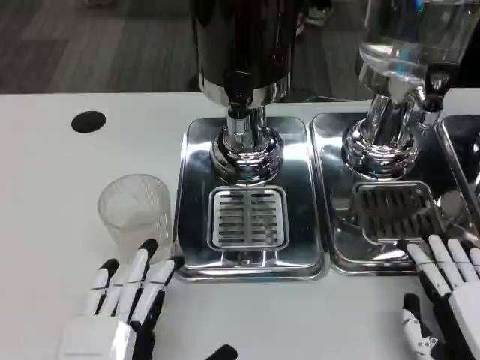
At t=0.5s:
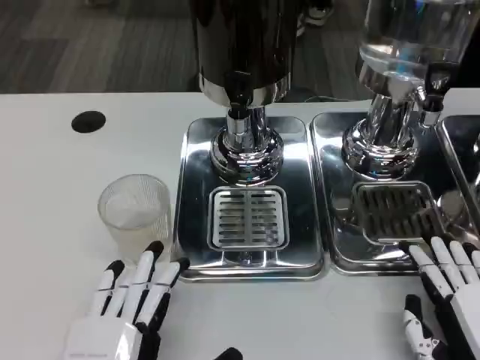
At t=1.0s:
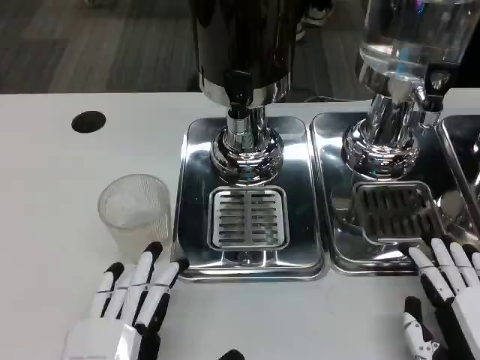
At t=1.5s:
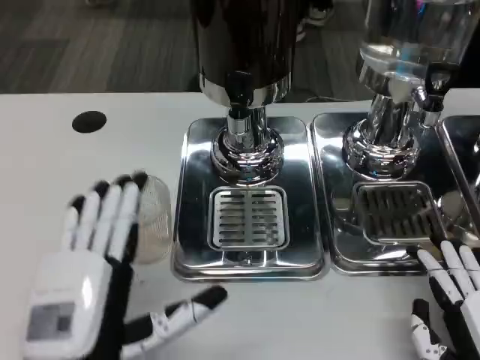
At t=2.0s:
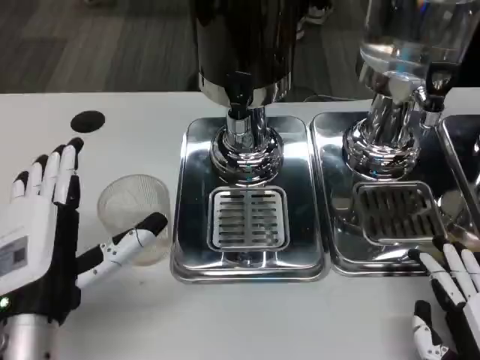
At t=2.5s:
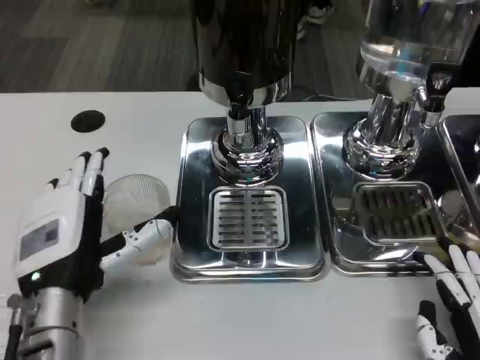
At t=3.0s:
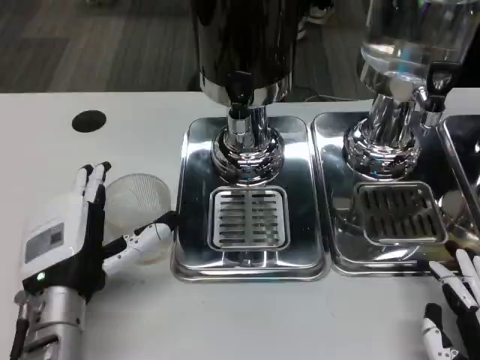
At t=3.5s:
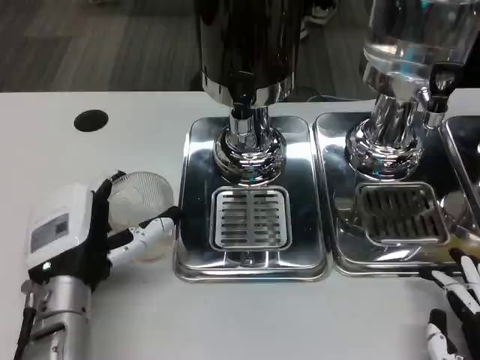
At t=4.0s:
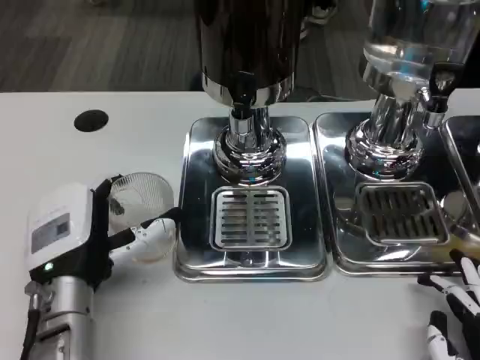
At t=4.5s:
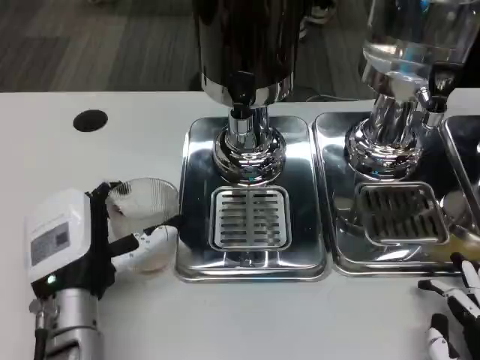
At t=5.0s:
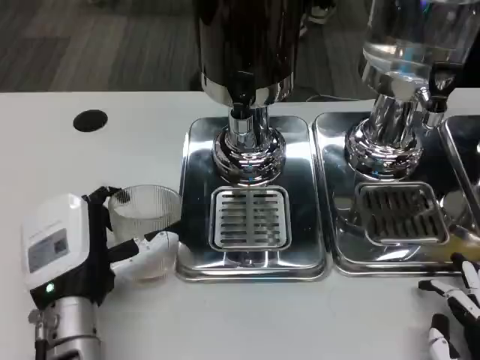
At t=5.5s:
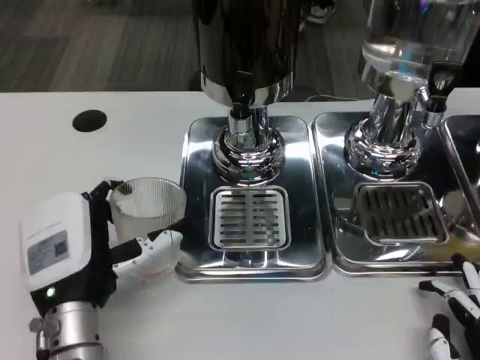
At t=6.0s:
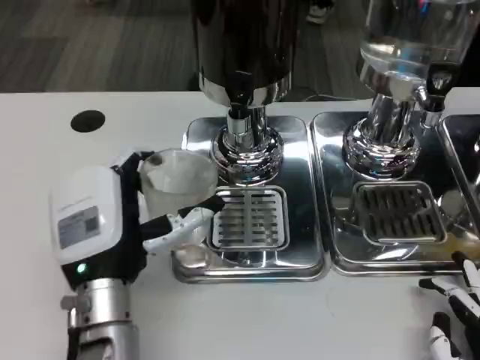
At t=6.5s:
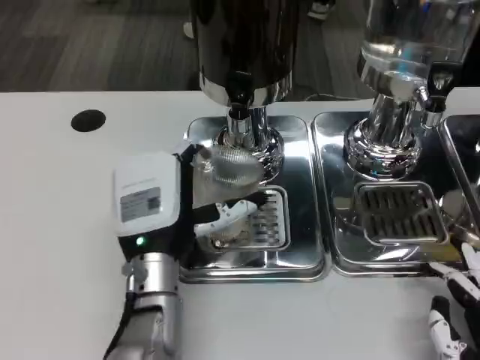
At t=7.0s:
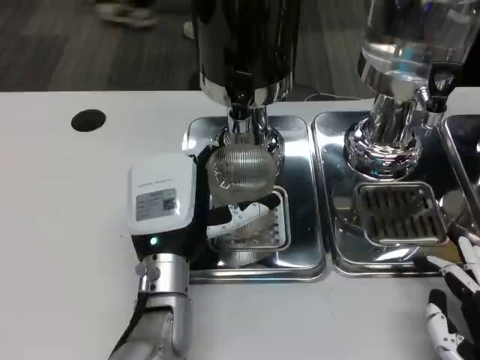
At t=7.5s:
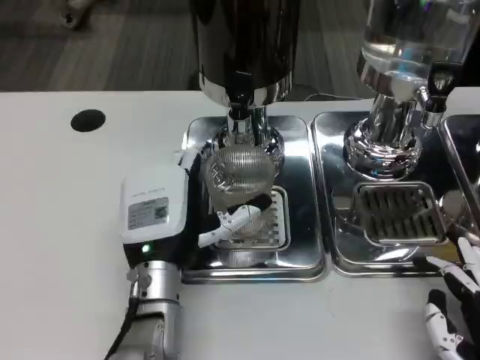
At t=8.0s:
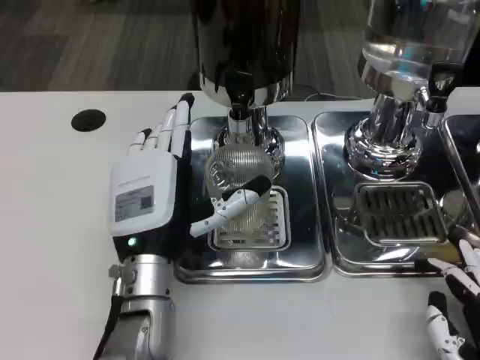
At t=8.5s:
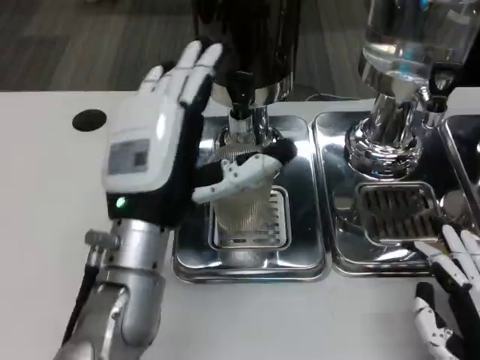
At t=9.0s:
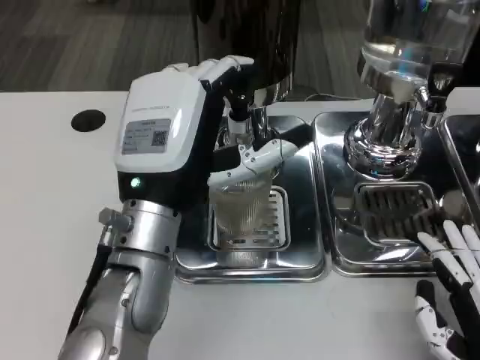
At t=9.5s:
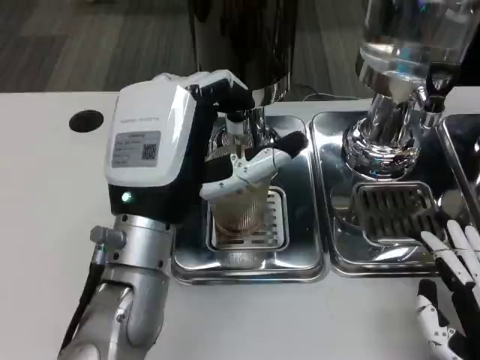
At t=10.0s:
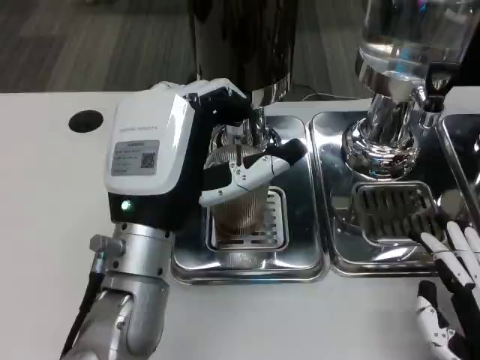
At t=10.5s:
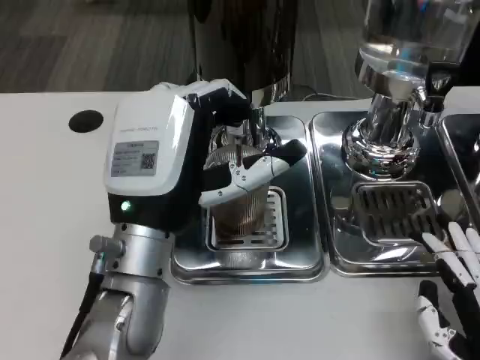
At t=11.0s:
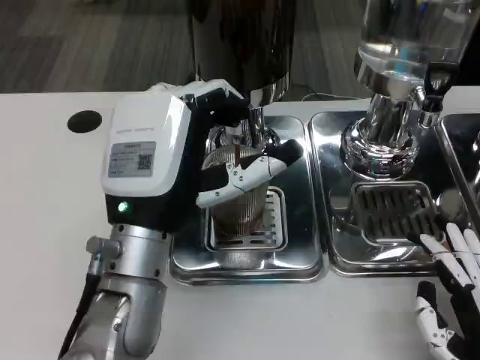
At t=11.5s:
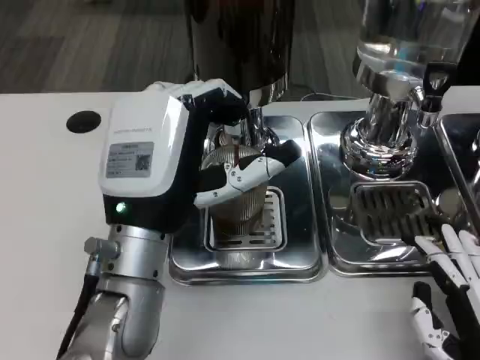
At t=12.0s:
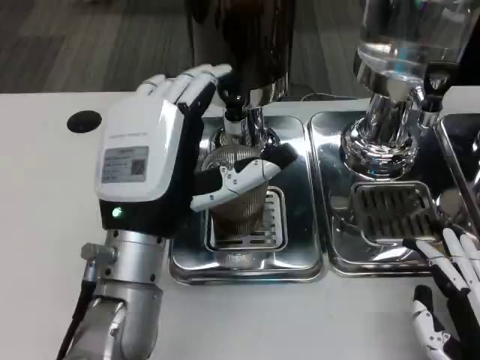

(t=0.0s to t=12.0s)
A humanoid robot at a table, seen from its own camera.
Task of the whole recording: Grasp the cup under the faucet to collect the drink, then remove the cup.
t=0.0s - t=2.0s: The left hand travels forward and upward by approximately 10 cm.
t=2.0s - t=4.0s: The left hand changes place by about 5 cm.
t=8.0s - t=10.0s: The left hand moves upward, approximately 5 cm.
t=10.0s - t=12.0s: Both hands stay put.

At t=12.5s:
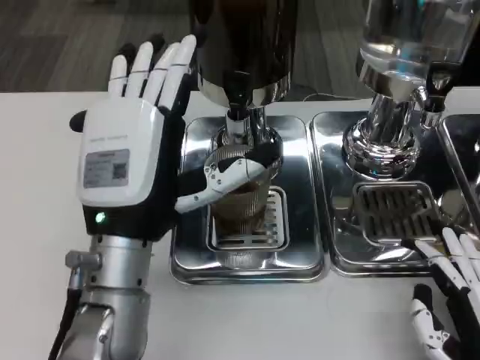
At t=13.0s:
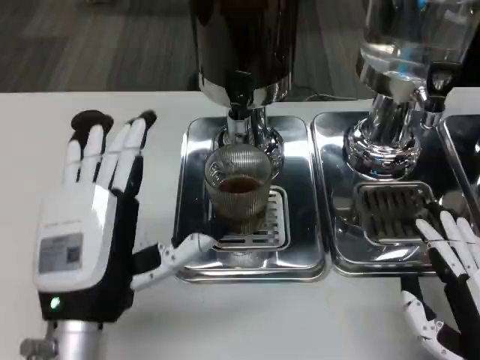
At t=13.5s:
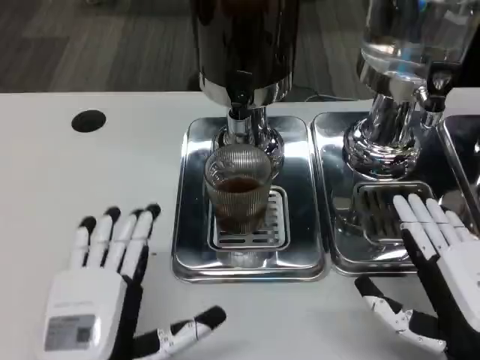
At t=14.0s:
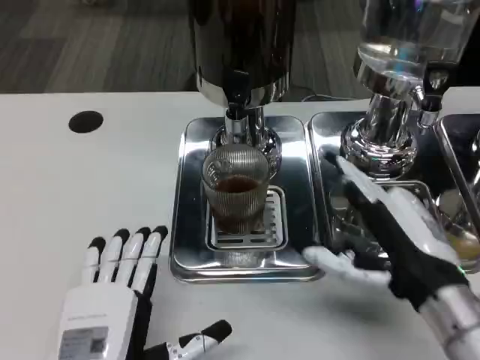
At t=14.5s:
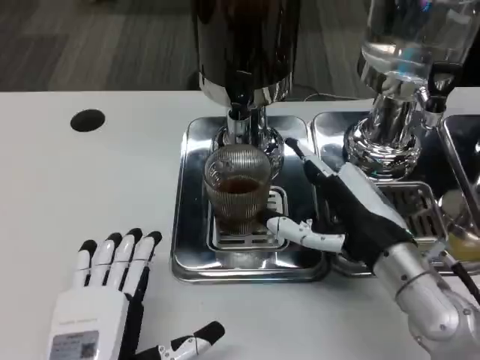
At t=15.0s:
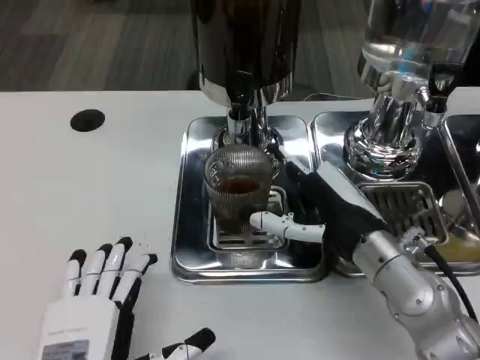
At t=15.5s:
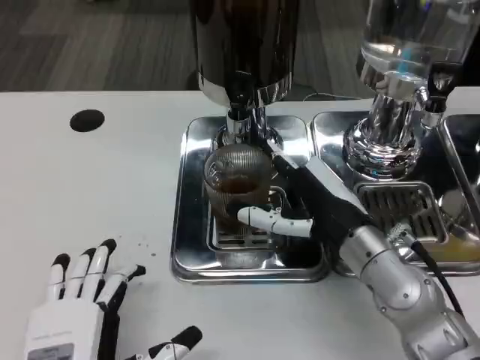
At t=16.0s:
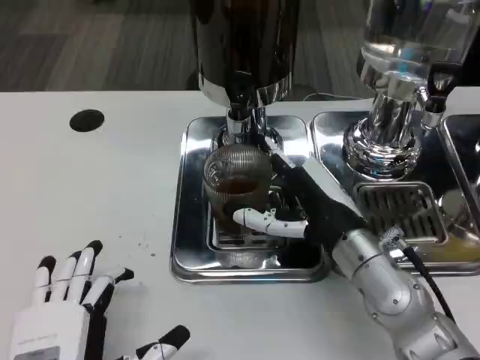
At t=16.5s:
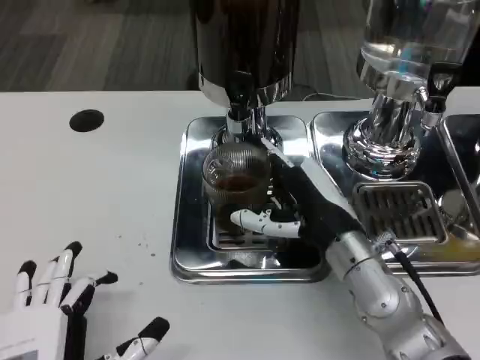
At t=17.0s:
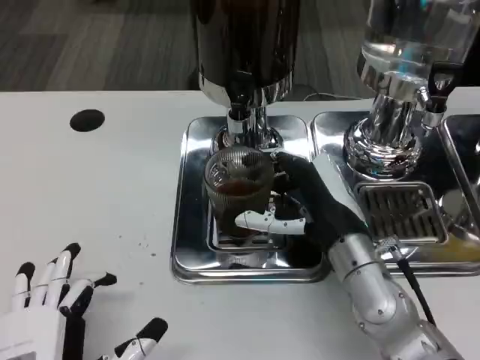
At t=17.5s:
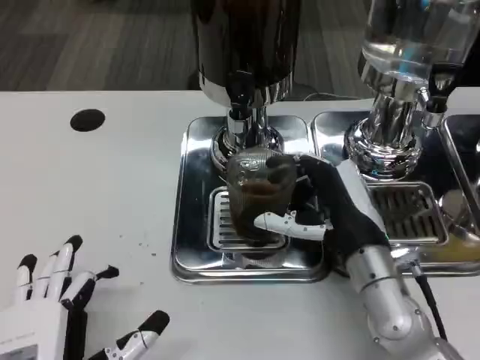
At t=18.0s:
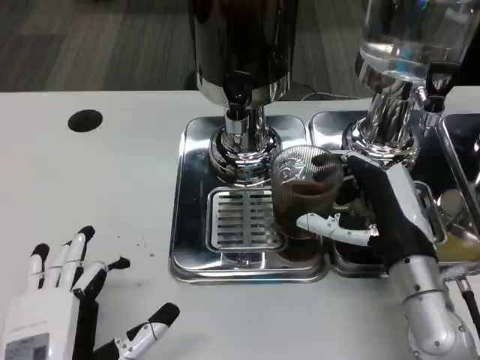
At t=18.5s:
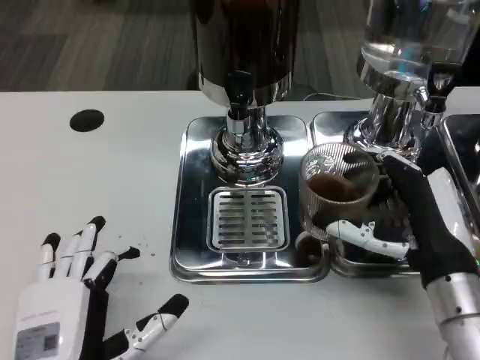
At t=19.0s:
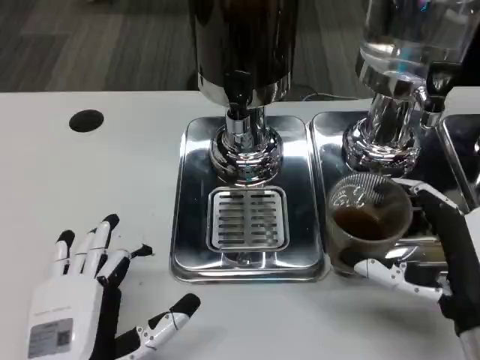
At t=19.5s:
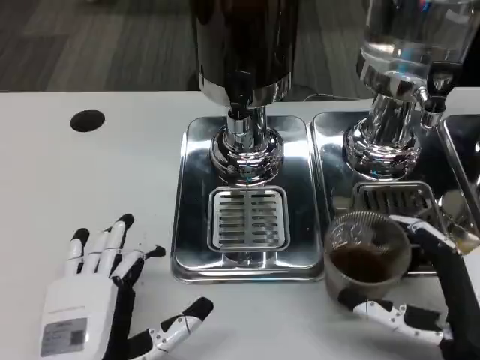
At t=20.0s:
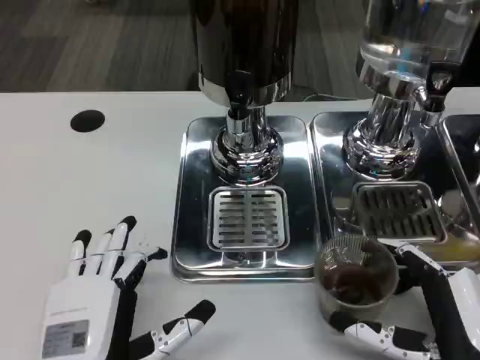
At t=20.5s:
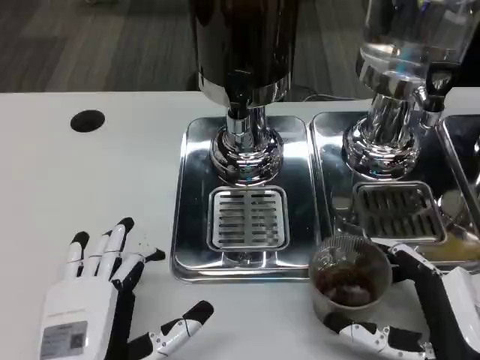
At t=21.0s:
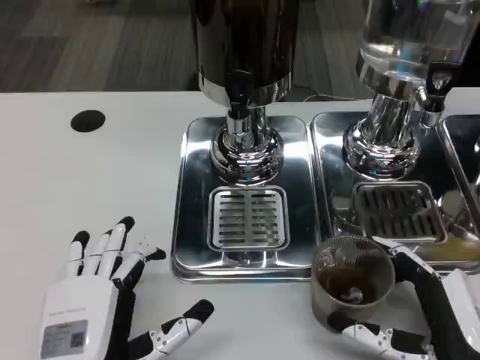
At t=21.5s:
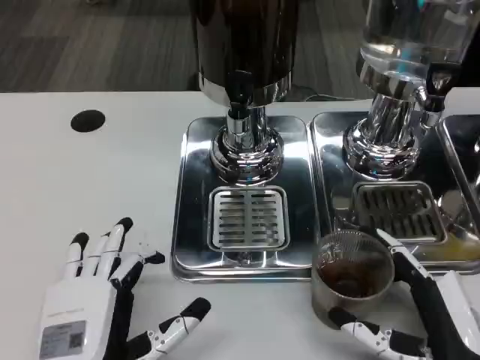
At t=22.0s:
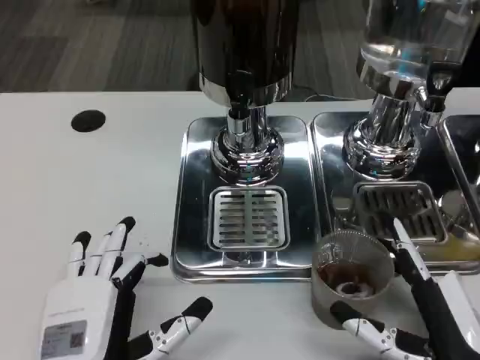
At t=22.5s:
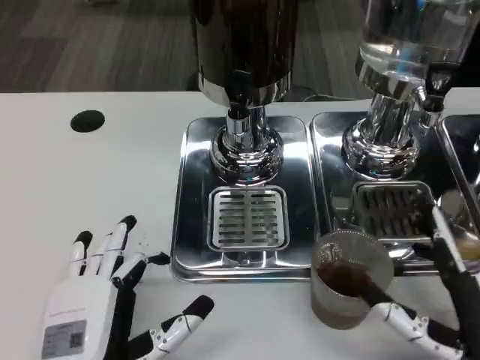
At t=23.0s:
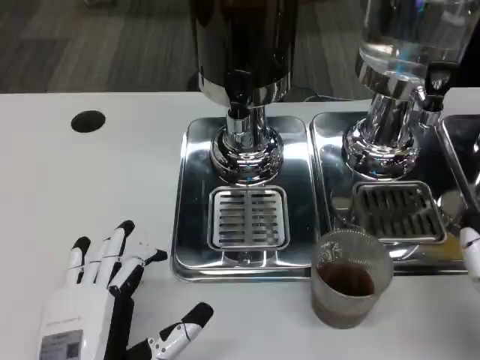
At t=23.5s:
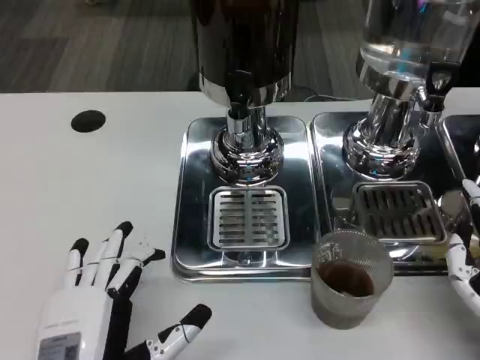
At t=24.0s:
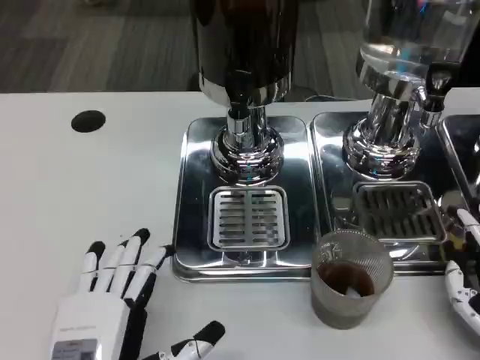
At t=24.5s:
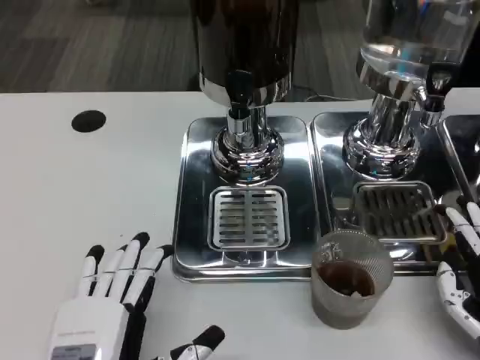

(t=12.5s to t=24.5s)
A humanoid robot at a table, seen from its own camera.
Task of the whole recording: Grasp the cup under the faucet to collect the drink, then remove the cup.
t=12.5s - t=14.5s: The right hand moves forward, to the left and upward, about 15 cm, while the left hand goes roughly 15 cm backward and downward.
t=14.5s - t=16.5s: The right hand ends up roughly 5 cm from where it was.
t=16.5s - t=18.5s: The right hand is displaced to the right and backward by about 10 cm.
t=18.5s - t=20.5s: The right hand moves backward, about 10 cm.
t=20.5s - t=22.5s: There are only small adjustments of the hands.
t=22.5s - t=24.5s: The right hand changes place by roughly 5 cm.

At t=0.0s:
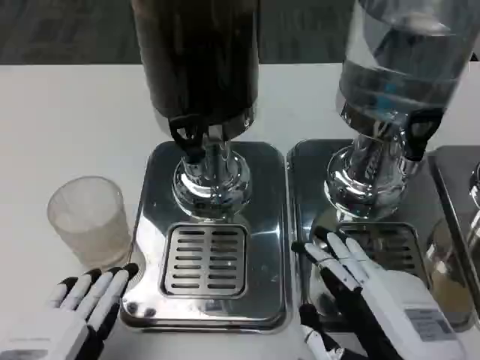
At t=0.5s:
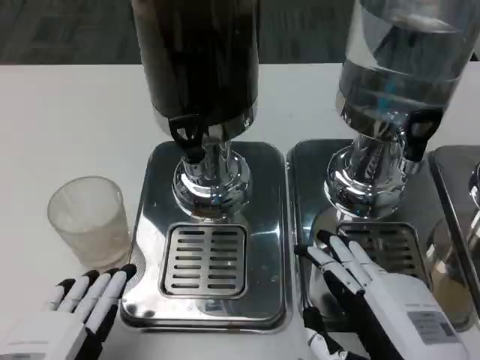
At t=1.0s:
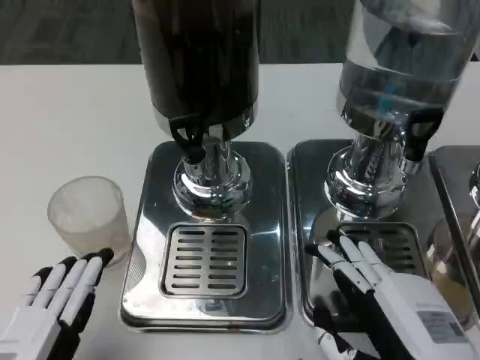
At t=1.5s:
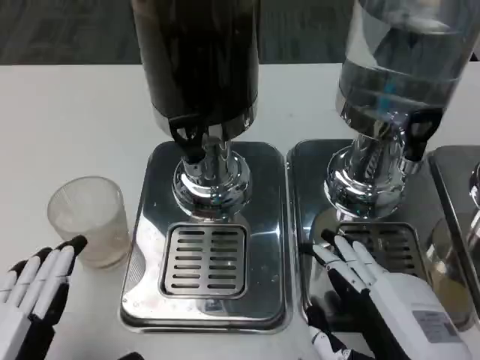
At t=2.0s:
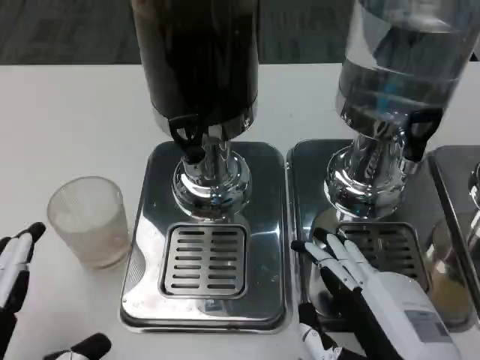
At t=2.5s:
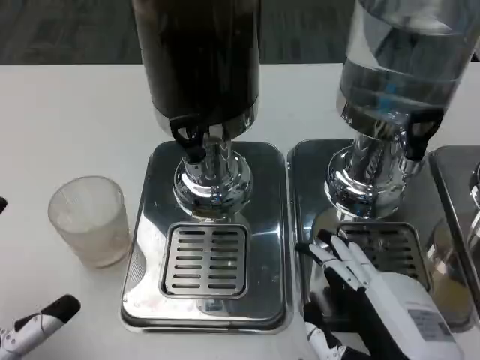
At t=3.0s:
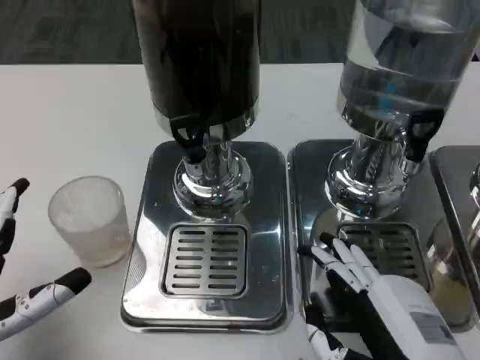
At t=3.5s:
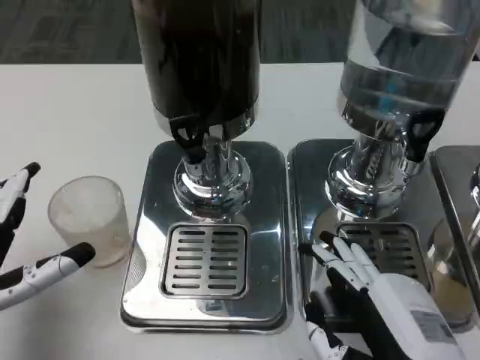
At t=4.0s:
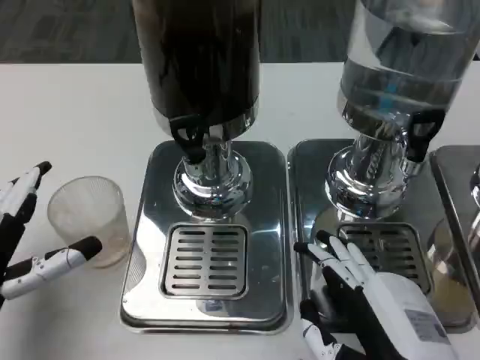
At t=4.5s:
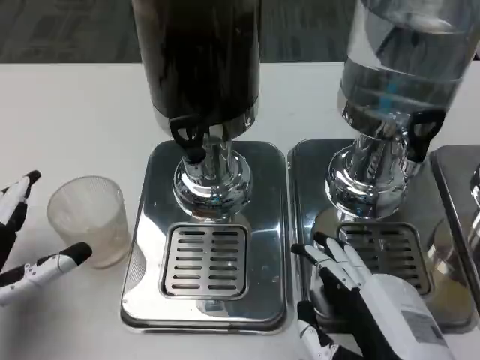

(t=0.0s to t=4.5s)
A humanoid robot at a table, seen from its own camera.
Task of the whole recording: Grasp the cup under the faucet to collect the drink, then remove the cup.
t=2.0s - t=4.5s: The left hand moves forward, about 10 cm.
